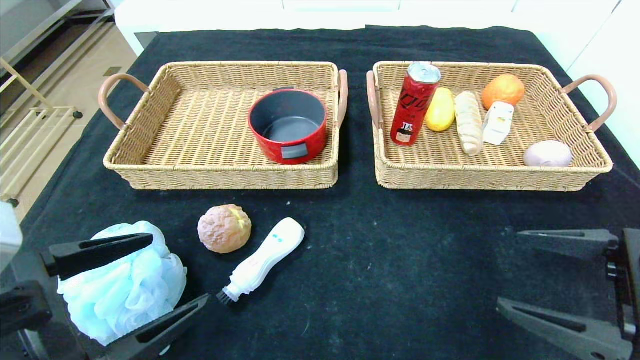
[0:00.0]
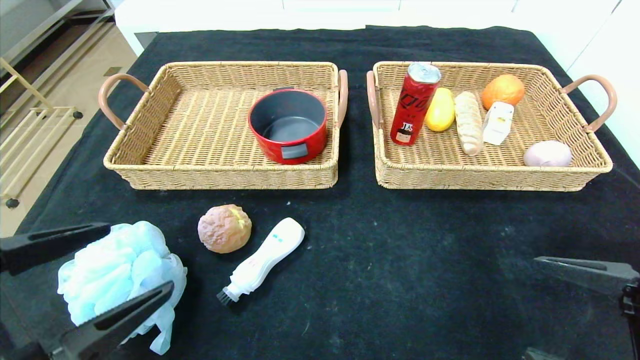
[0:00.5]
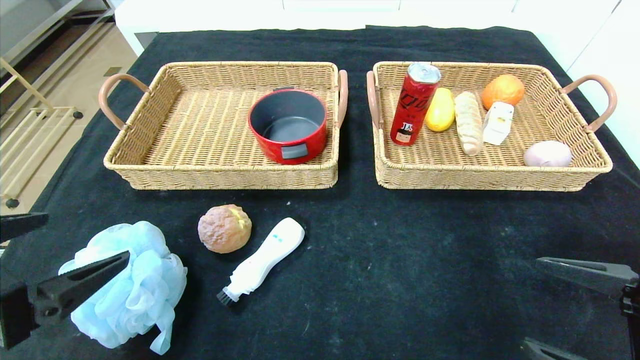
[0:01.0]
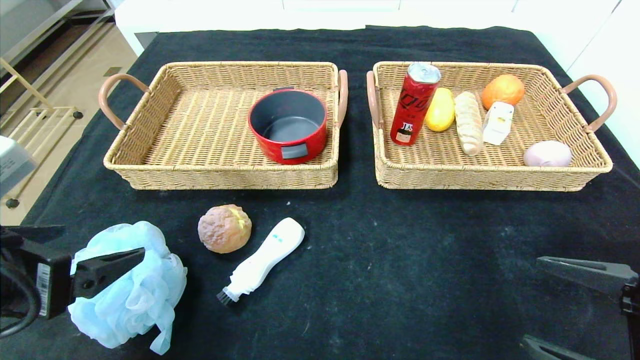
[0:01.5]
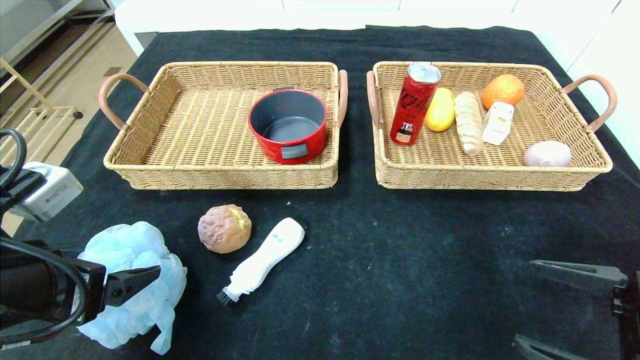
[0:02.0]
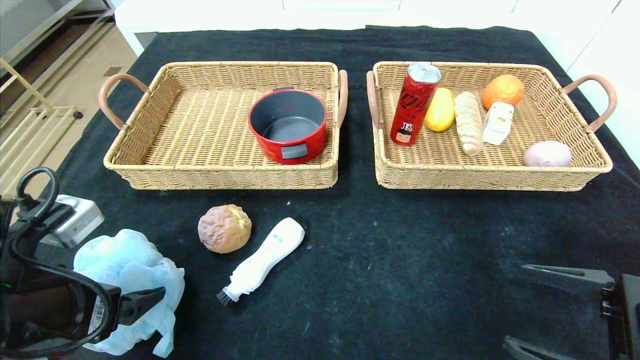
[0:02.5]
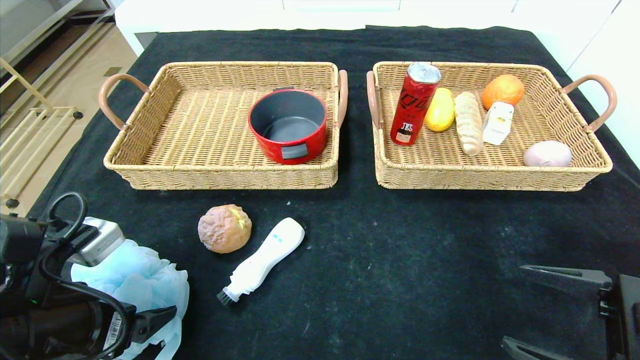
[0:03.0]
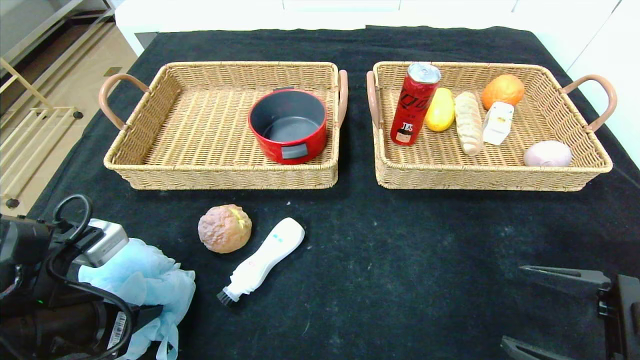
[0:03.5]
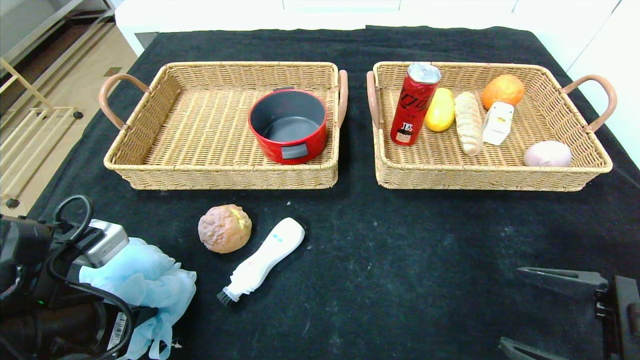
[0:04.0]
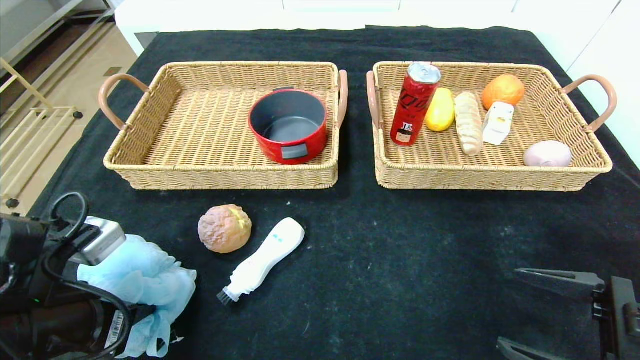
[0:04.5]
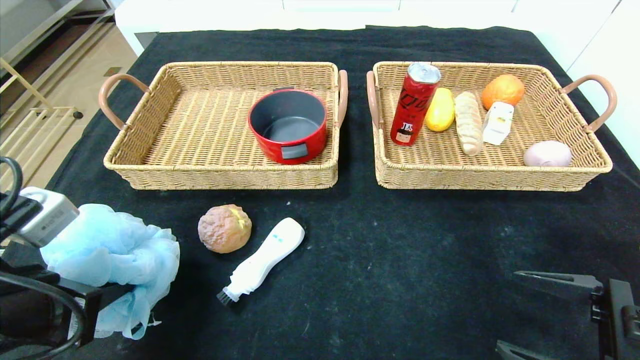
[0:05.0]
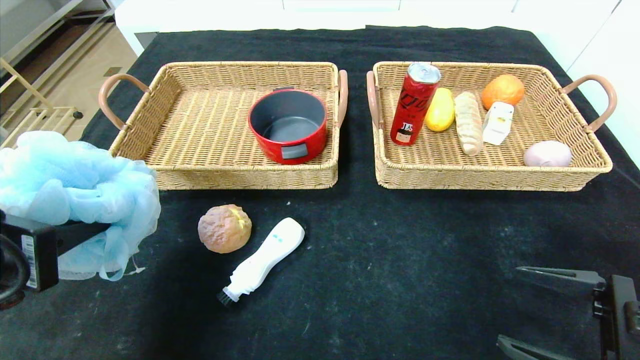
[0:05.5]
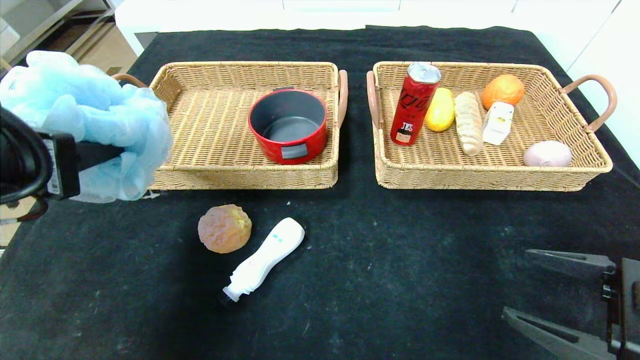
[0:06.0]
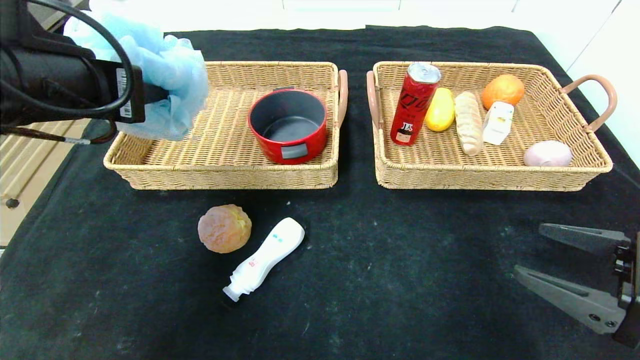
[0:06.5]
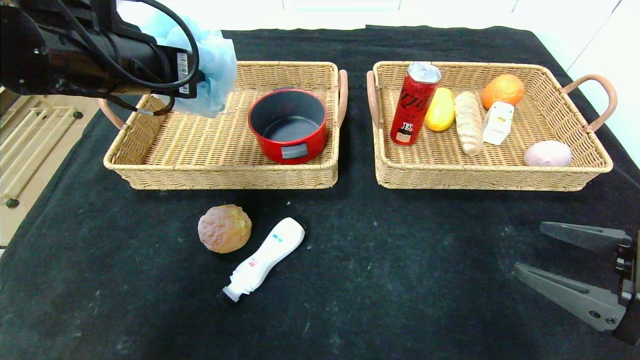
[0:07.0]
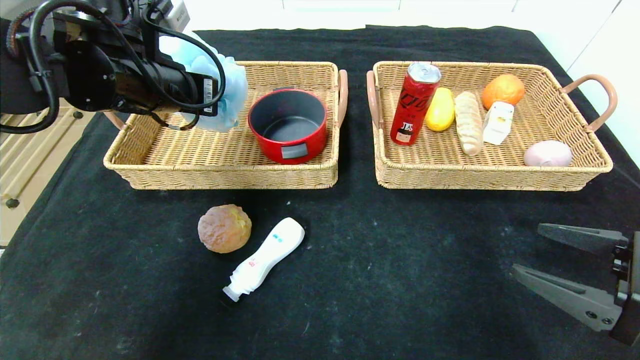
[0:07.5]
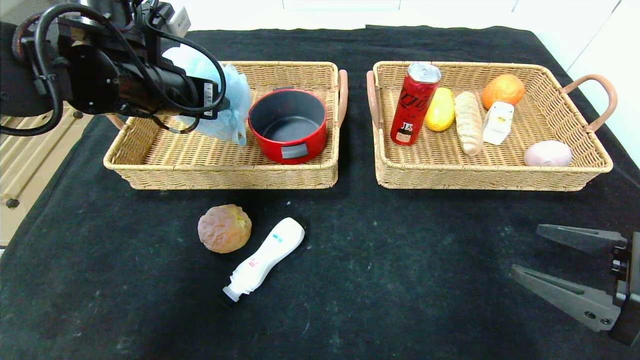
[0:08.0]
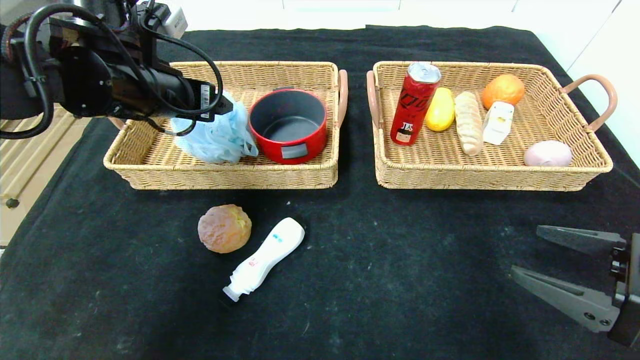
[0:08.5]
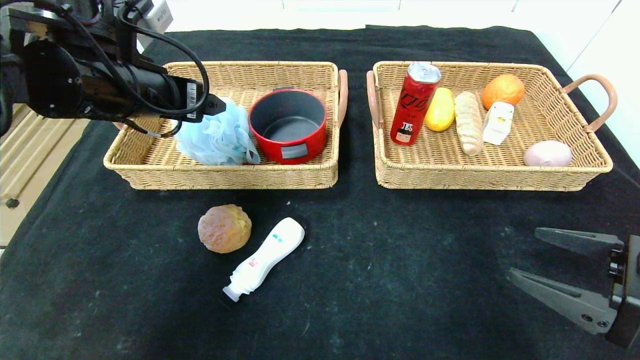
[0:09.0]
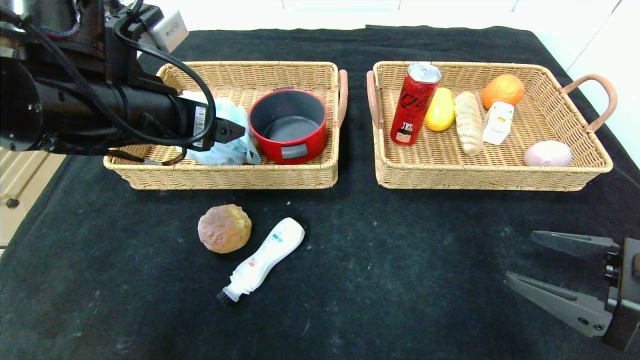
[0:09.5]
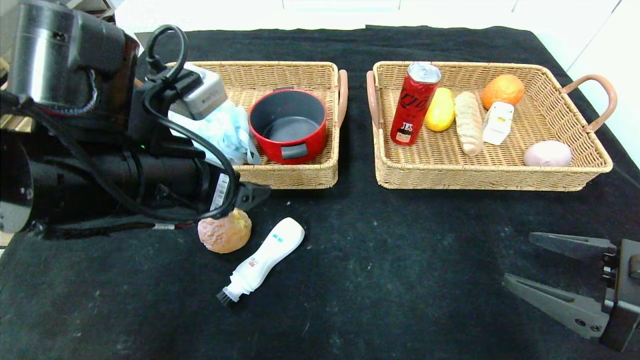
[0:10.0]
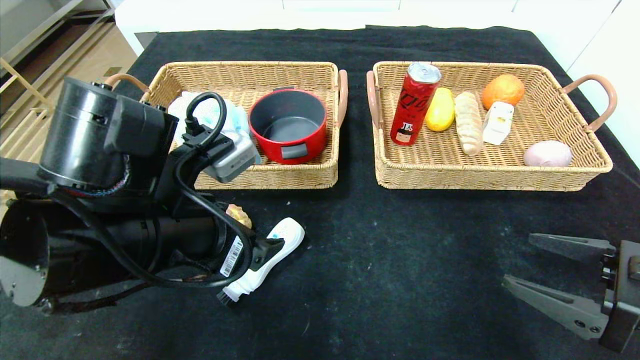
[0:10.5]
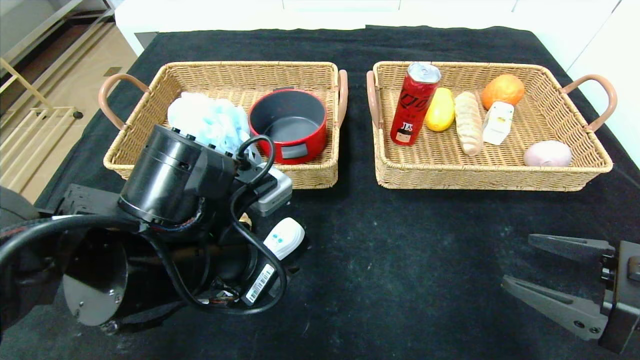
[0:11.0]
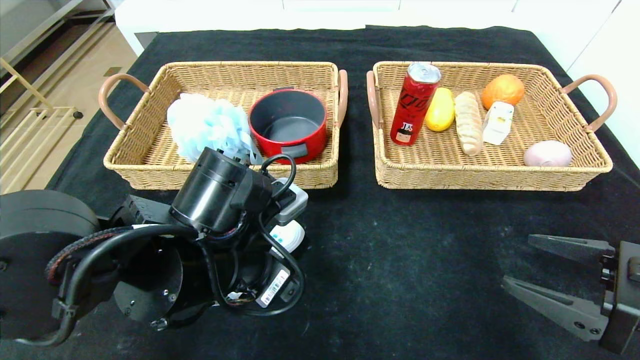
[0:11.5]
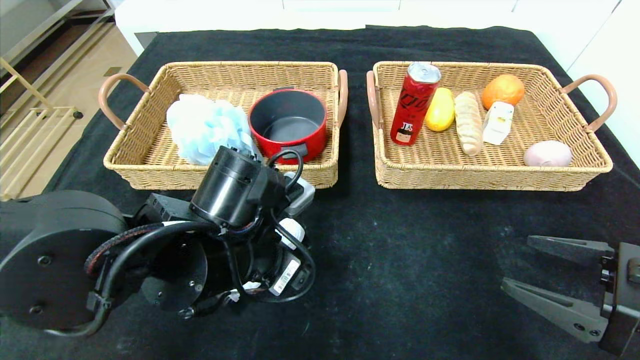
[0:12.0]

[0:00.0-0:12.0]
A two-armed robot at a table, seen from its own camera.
Step, 0:00.0 to 0:08.5: Grasp the bath ball and put it in the left basket.
0:00.0 to 0:02.0: The right gripper changes place by approximately 5 cm; the left gripper ends up some 5 cm from where it was.
0:02.0 to 0:04.0: The left gripper heads downward, covering some 5 cm, and closes its fingers.
0:04.0 to 0:06.0: The left gripper goes roughly 15 cm upward.
0:06.0 to 0:08.0: The left gripper is displaced forward by about 15 cm, and opens.
0:08.0 to 0:10.0: The left gripper is displaced backward by roughly 10 cm, and opens up.
0:10.0 to 0:12.0: The left gripper travels downward and to the right by roughly 10 cm.

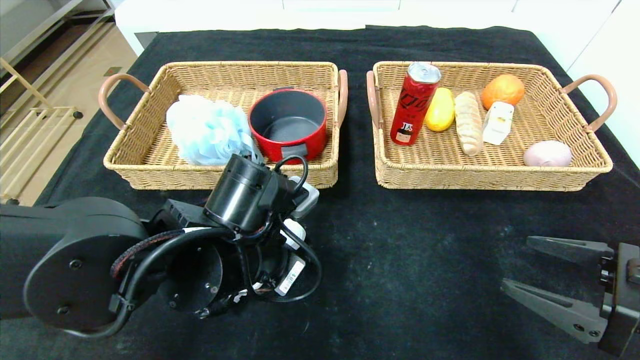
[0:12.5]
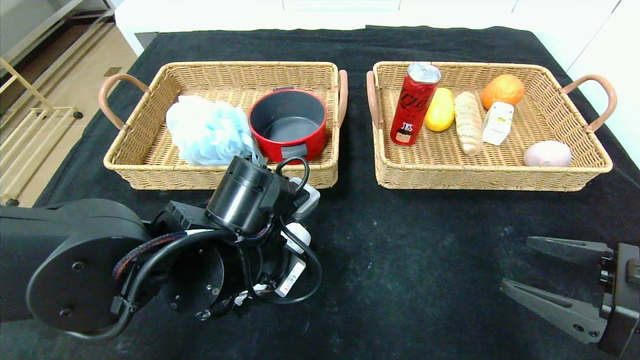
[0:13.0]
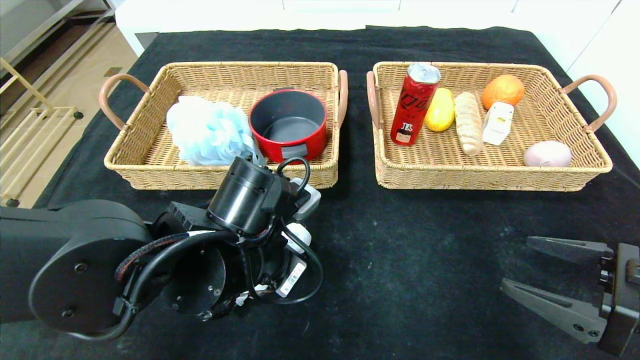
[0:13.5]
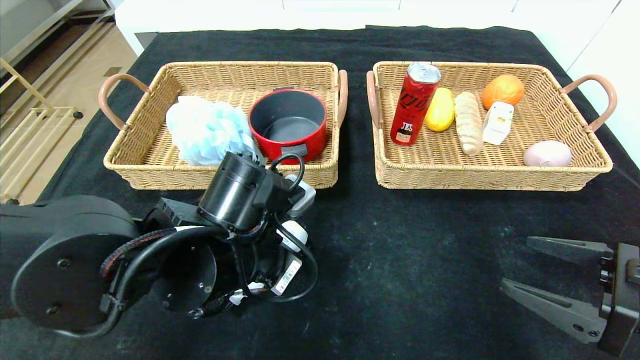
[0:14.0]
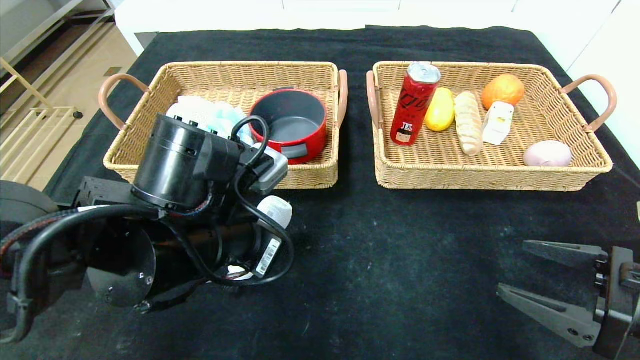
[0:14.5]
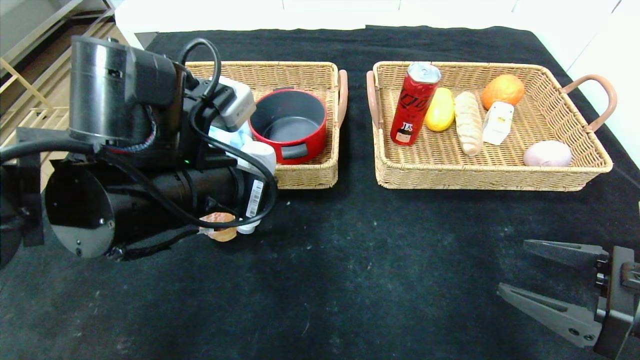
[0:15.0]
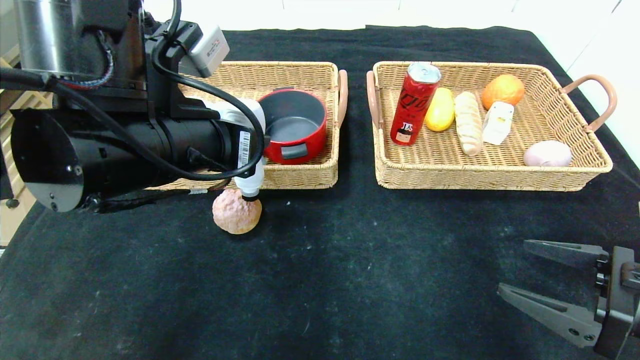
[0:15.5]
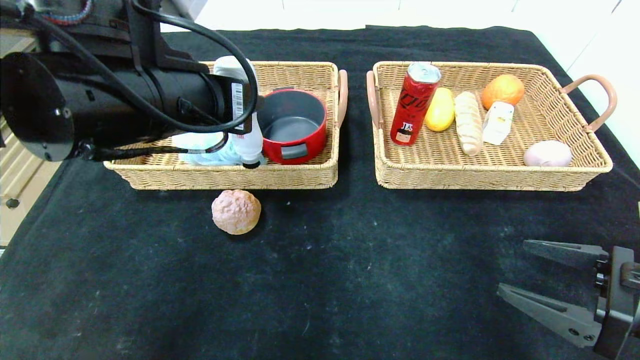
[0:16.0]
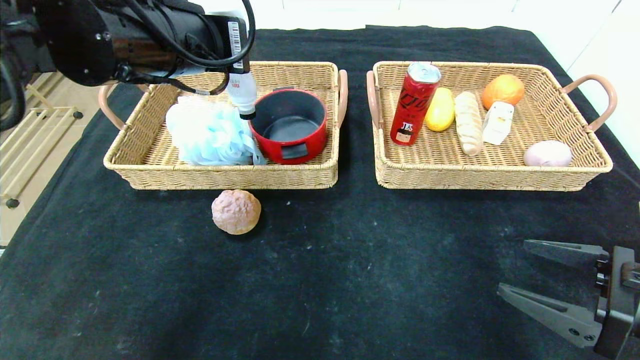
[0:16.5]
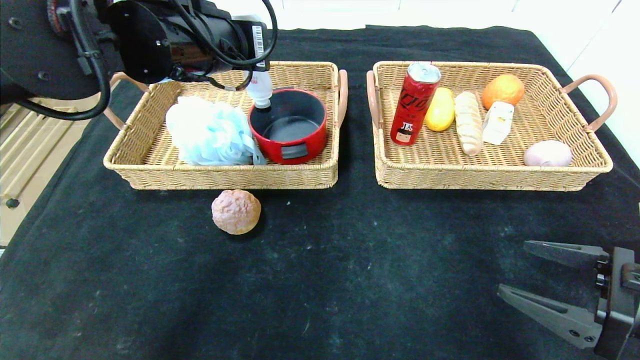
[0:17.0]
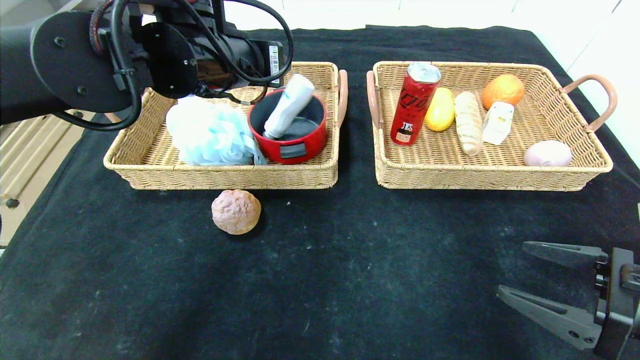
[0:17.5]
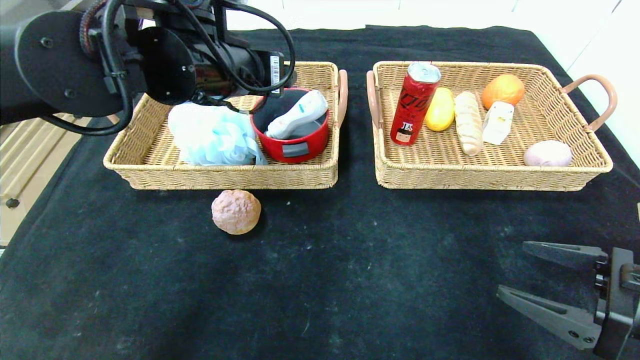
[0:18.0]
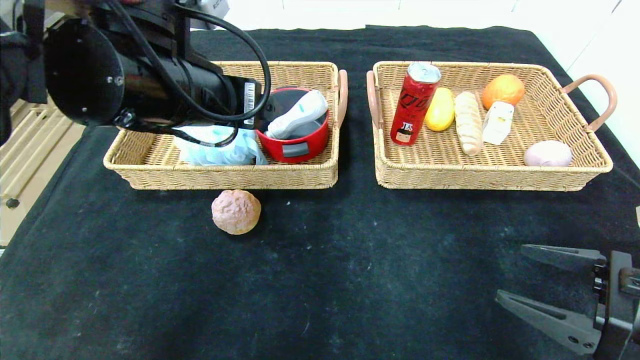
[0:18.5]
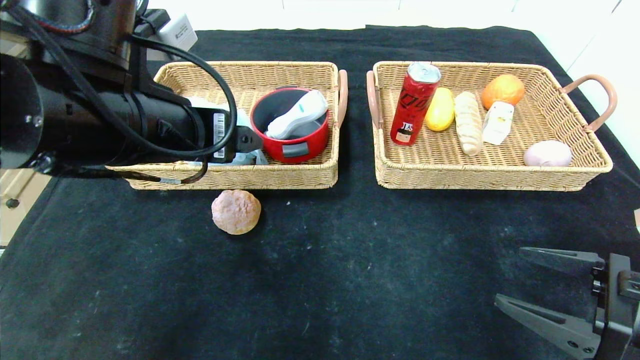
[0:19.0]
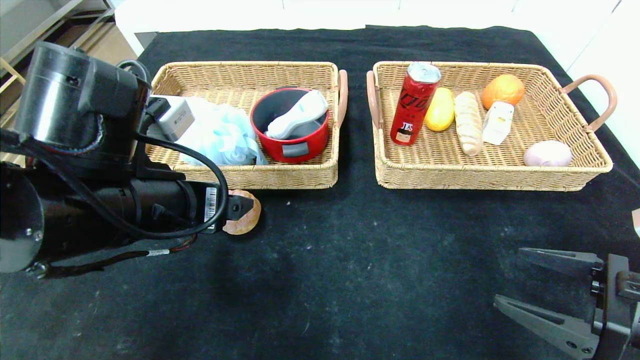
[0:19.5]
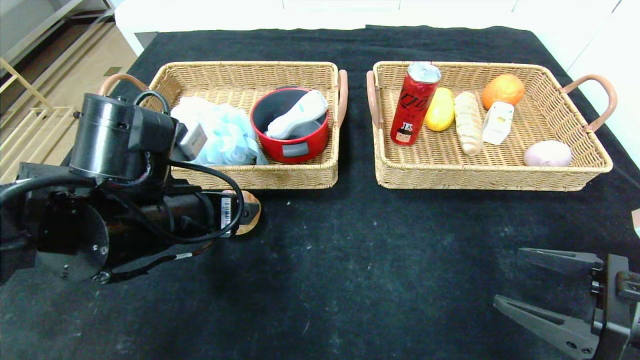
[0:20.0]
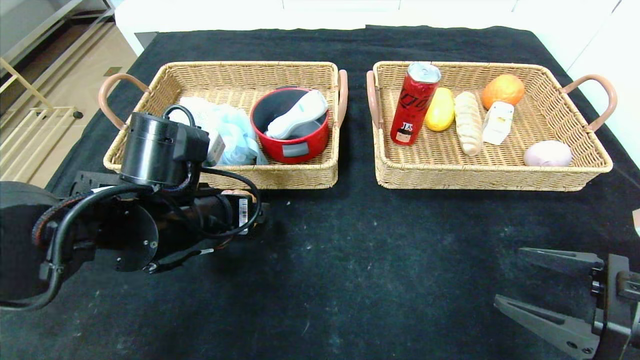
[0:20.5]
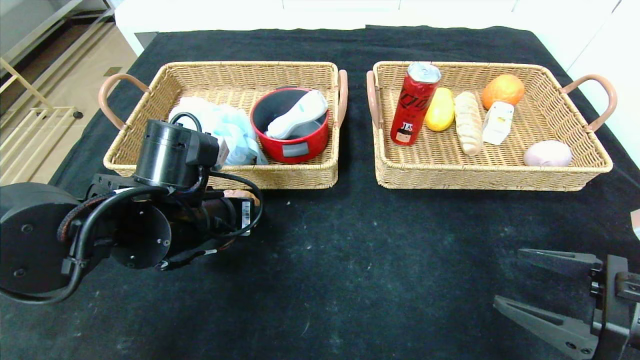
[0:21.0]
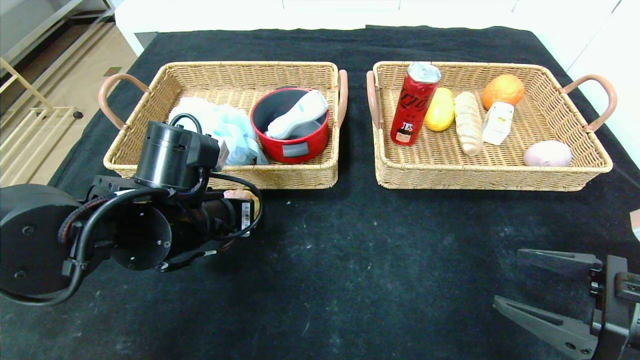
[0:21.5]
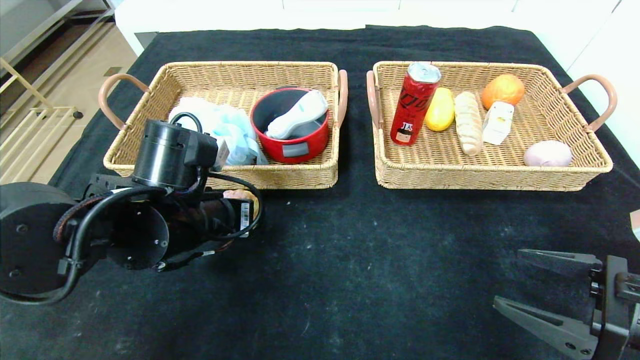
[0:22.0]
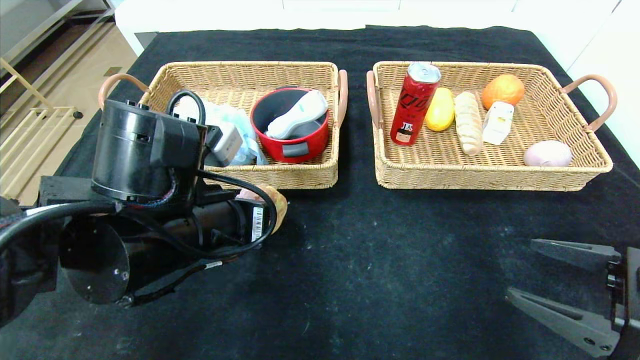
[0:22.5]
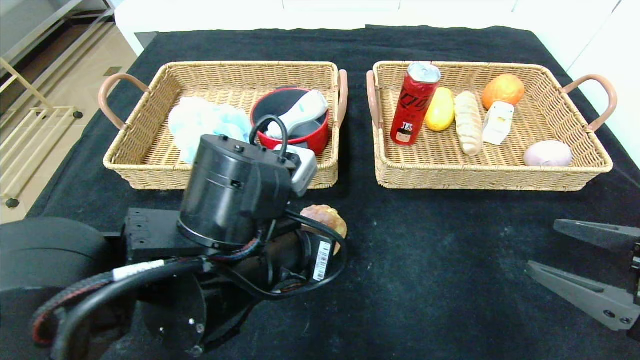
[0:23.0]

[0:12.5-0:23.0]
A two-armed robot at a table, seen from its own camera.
Step, 0:12.5 to 0:17.5: Grasp the washing liquid and put it in the left basket.
0:12.5 to 0:14.5: The left gripper closes up.
0:14.5 to 0:16.5: The left gripper heads upward and forward, covering about 15 cm.
0:16.5 to 0:19.0: The left gripper travels backward and downward by approximately 10 cm, and opens its fingers.
0:19.0 to 0:21.0: The left gripper heads downward, covering about 10 cm.
0:21.0 to 0:23.0: The left gripper goes some 10 cm to the right and backward, and closes up.
